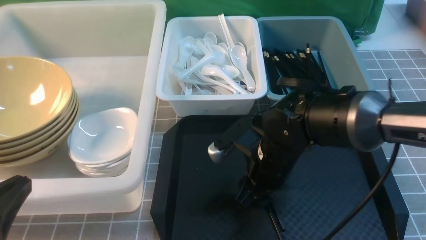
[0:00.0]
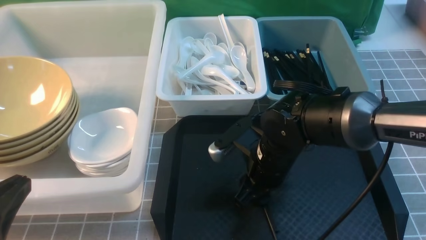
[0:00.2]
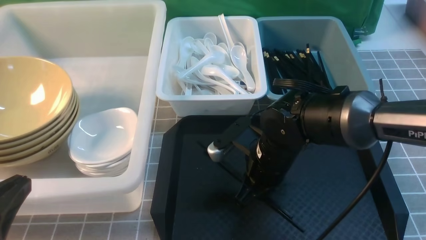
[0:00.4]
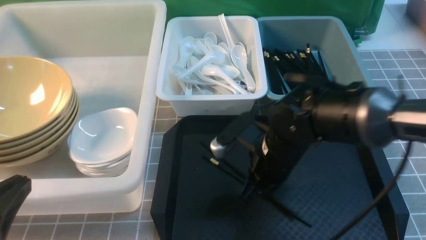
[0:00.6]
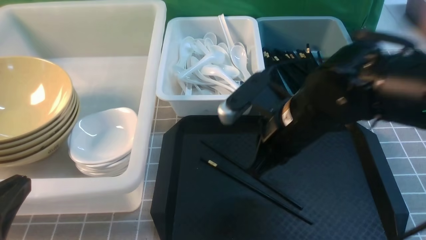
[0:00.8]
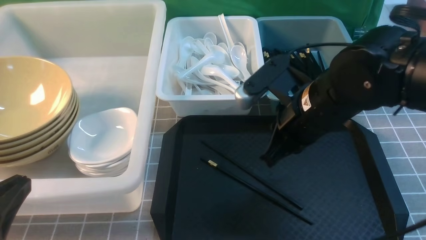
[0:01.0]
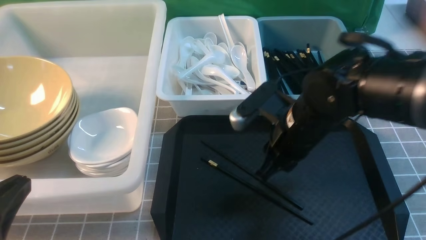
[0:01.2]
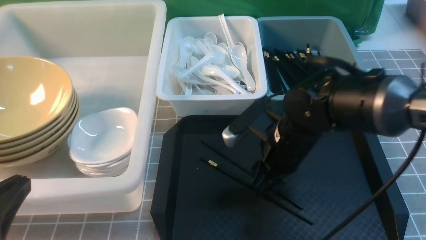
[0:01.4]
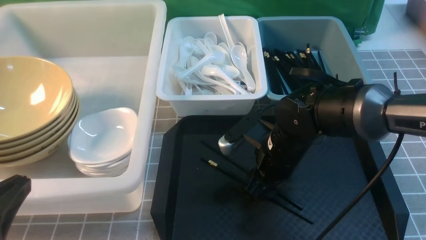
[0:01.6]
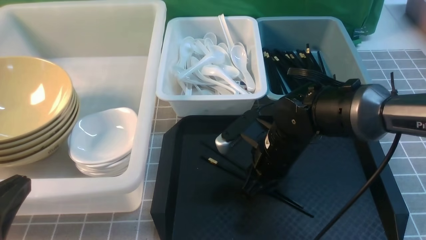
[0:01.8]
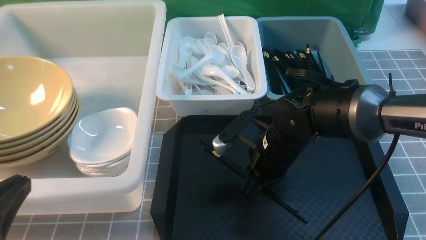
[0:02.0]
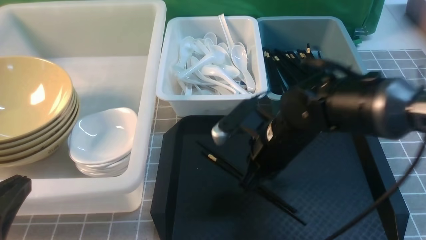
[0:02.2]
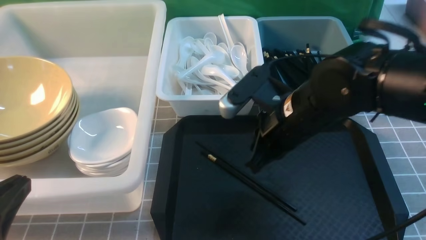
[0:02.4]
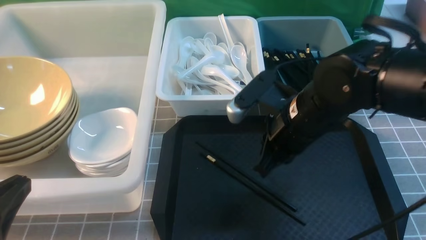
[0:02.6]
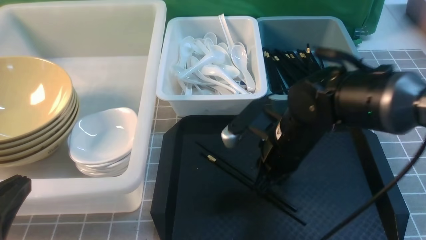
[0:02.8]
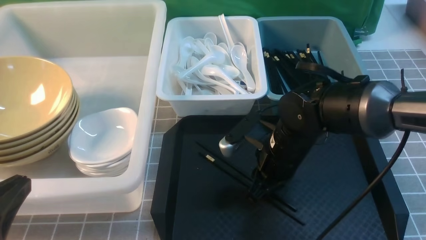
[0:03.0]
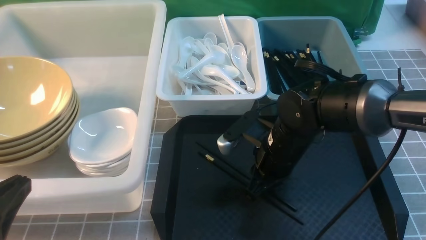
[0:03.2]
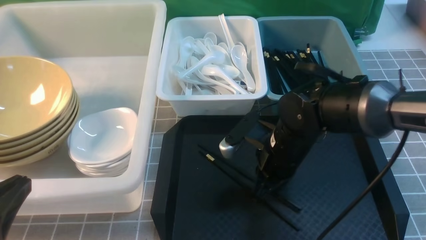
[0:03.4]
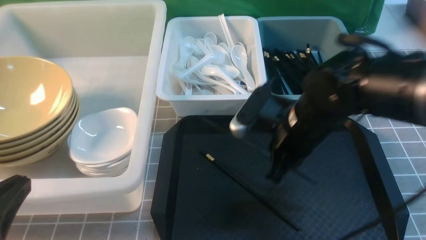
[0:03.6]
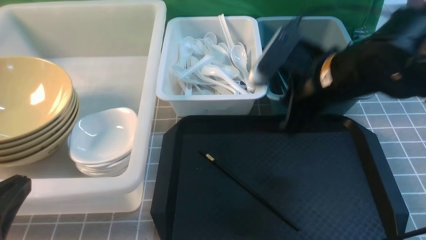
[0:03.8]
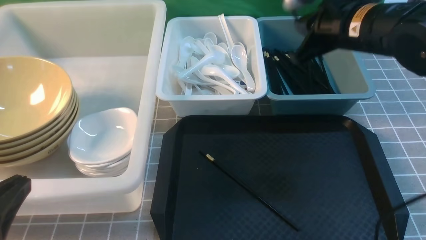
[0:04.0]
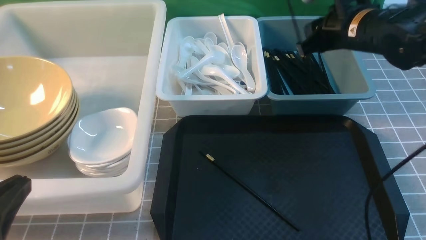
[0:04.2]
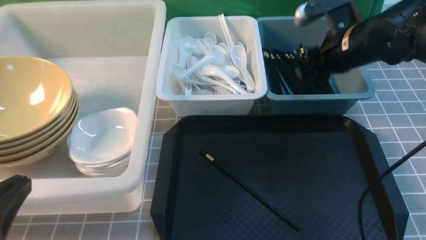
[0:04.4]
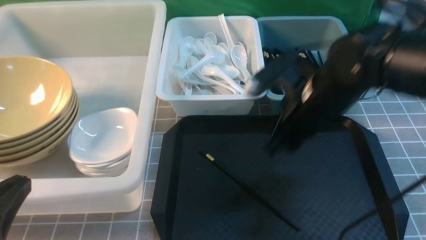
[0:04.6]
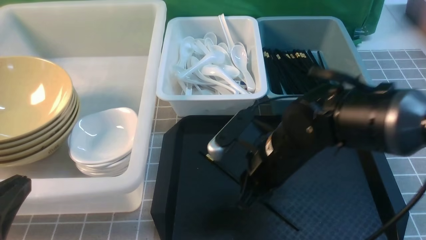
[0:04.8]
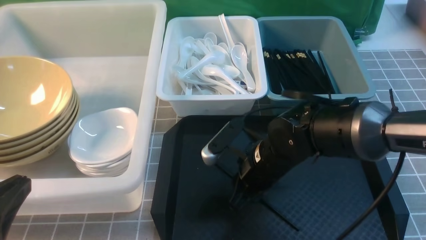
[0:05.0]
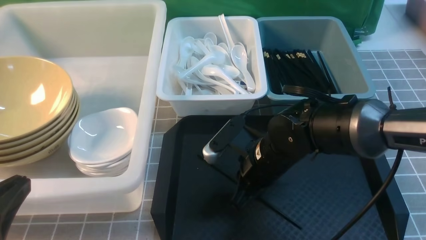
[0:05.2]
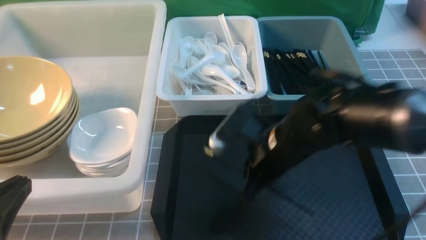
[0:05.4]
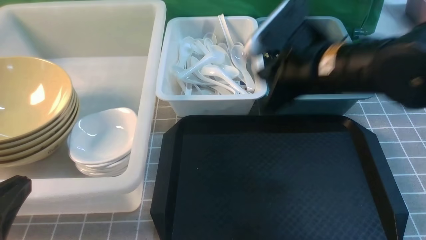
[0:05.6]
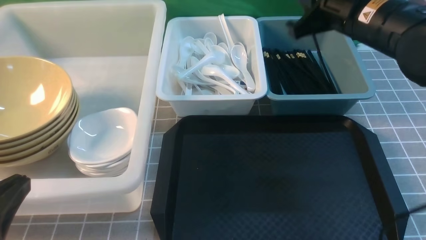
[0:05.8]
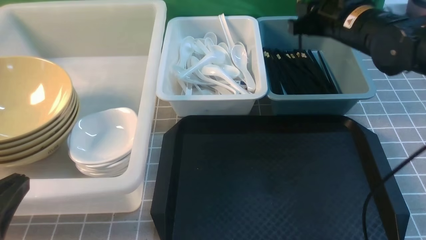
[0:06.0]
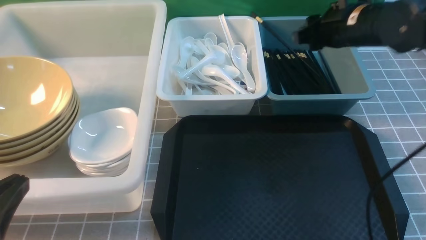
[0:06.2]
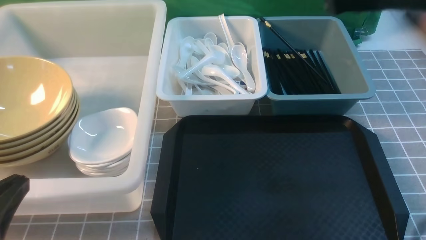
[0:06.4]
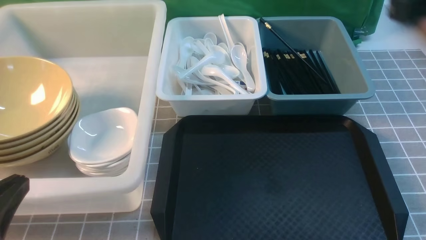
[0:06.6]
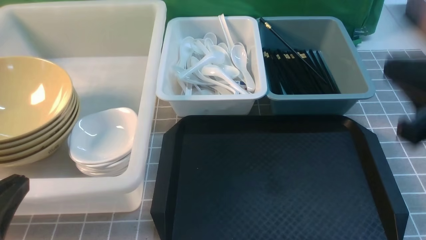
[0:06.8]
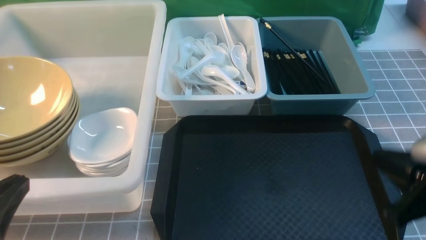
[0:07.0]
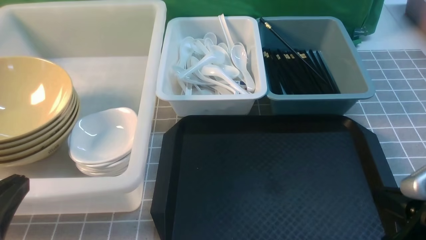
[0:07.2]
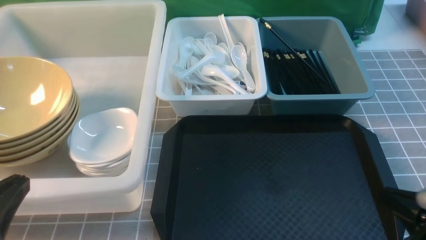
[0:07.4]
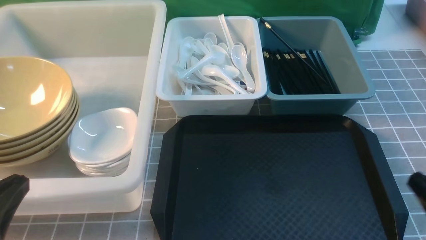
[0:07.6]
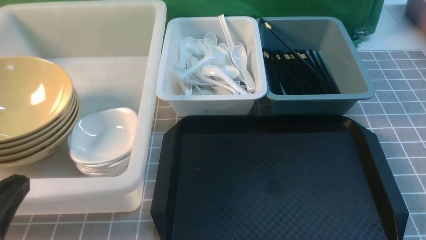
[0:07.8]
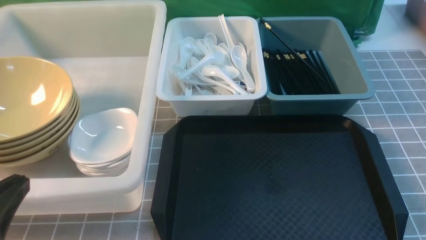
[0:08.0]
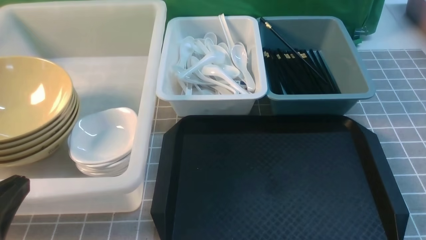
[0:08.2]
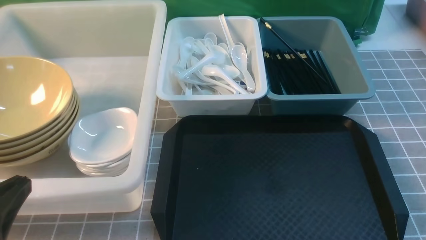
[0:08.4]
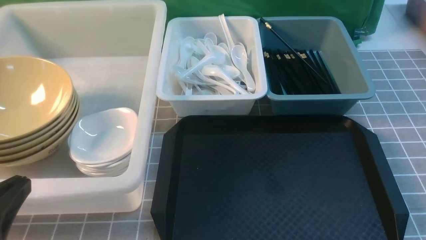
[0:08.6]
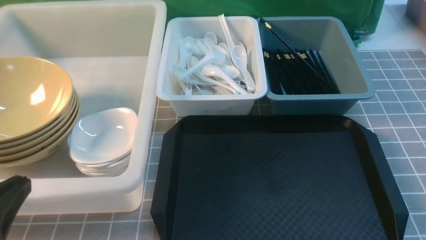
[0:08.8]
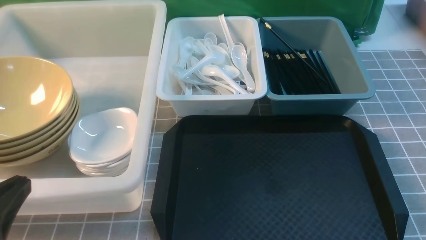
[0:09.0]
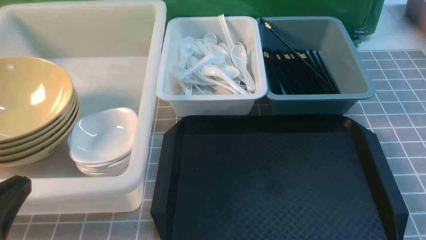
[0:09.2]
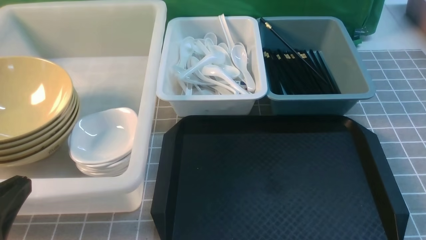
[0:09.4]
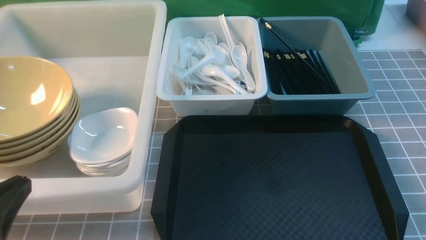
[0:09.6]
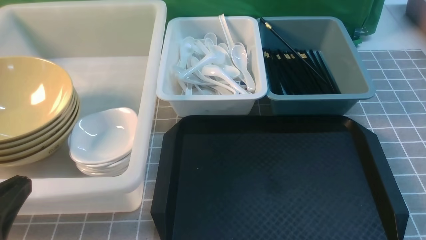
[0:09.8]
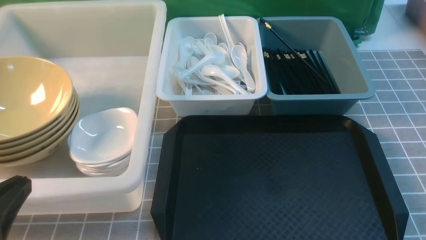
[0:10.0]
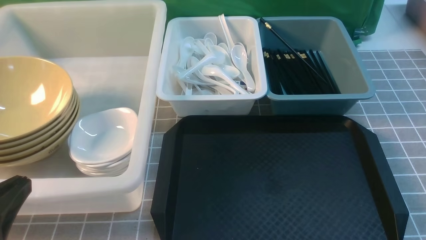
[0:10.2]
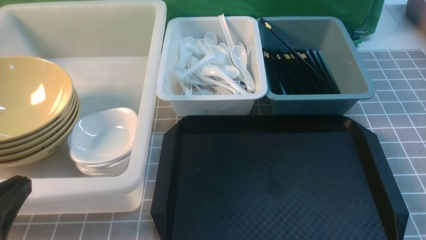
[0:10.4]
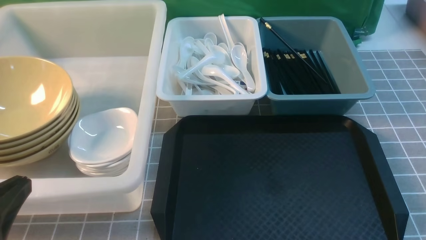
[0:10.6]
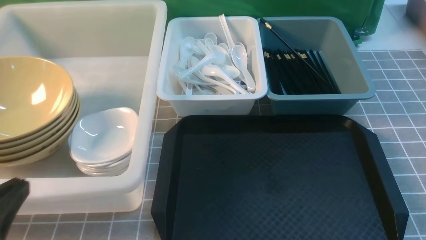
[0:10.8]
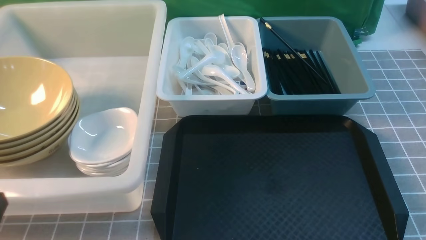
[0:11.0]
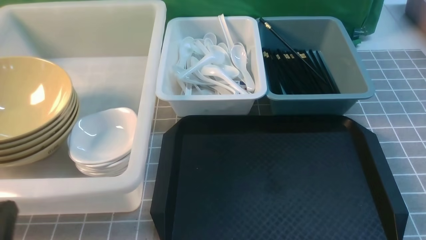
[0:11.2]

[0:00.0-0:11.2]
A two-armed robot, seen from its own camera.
Task of the whole recording: on grey table put chopsticks spoon bowls plates into blue grey white boxes.
Step, 0:00.0 to 0:03.6: use the right arm to grab a chopstick.
Step, 0:03.8 to 0:04.2: use the right arm to put a chopstick into the small storage box on the right.
Step, 0:04.4 to 0:05.4: use the right arm to grab a chopstick.
Step, 0:05.6 to 0:06.2: use the right arm to put a chopstick into the small storage box on the right.
0:00.0 to 0:01.6: The right gripper moves about 10 cm upward and comes back, and closes, then reopens.
0:01.6 to 0:03.2: The right gripper closes its fingers.
0:03.2 to 0:04.8: The right gripper moves approximately 15 cm upward and comes back, and opens.
0:04.8 to 0:06.4: The right gripper is displaced upward and to the right by roughly 25 cm, and closes its fingers.
0:06.4 to 0:08.0: The right gripper is displaced backward, downward and to the right by about 35 cm.
0:09.6 to 0:11.2: The left gripper heads downward, covering approximately 5 cm.

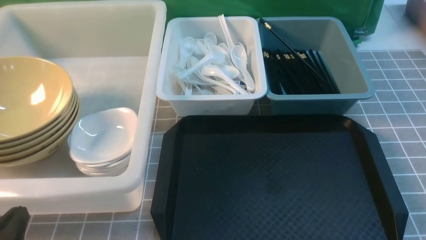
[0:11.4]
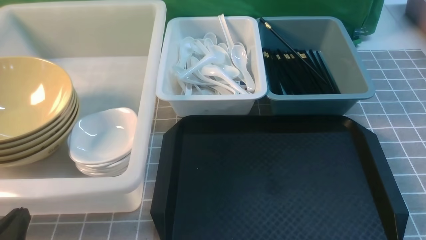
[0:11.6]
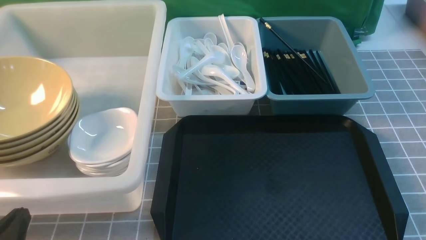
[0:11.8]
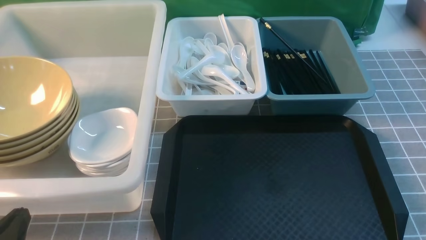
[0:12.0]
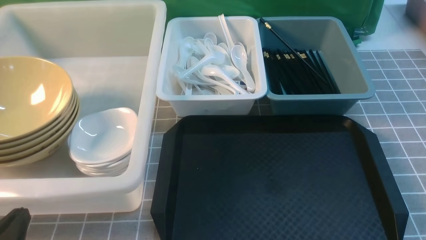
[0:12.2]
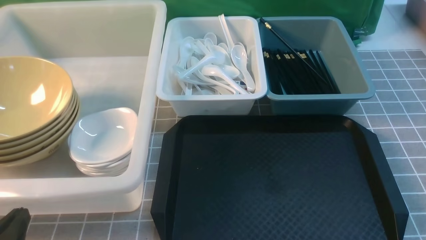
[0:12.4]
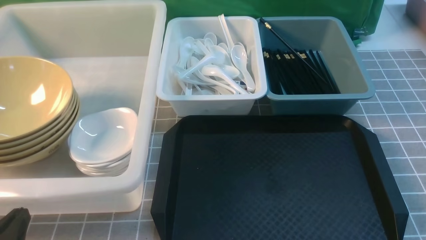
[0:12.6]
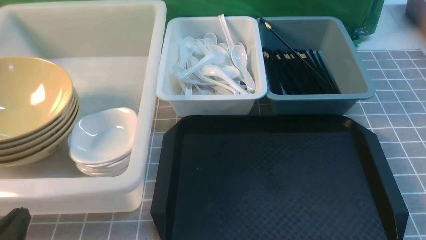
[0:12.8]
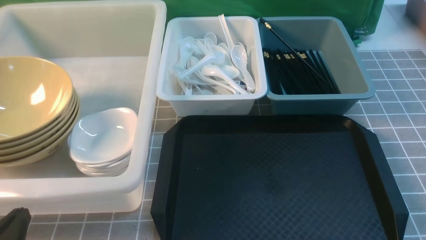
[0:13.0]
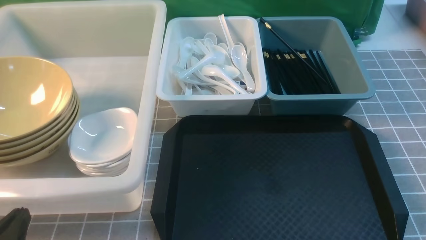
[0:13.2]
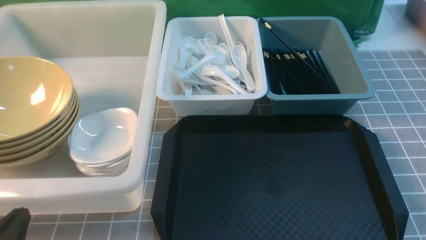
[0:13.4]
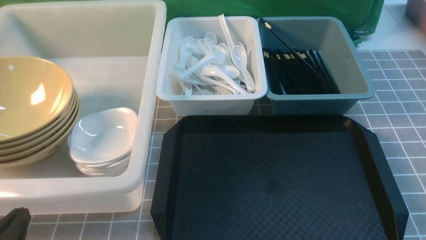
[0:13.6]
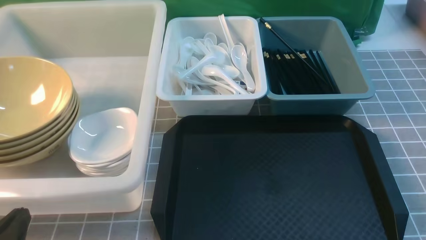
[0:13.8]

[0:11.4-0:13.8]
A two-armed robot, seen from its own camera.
Task of the whole recording: on grey table put chopsticks spoon bowls plates into blue grey white boxes.
0:11.4 to 0:13.8: Both grippers stay about where they are.

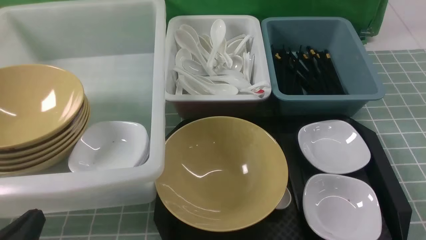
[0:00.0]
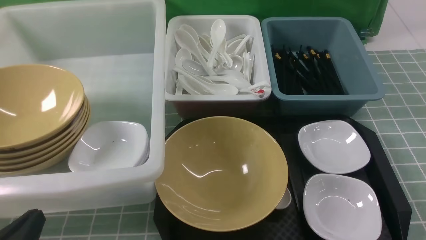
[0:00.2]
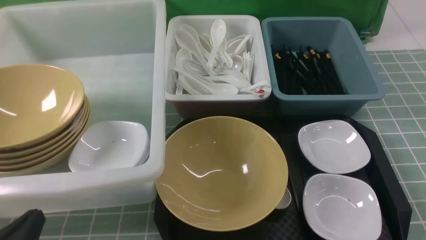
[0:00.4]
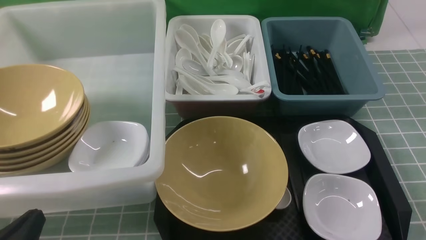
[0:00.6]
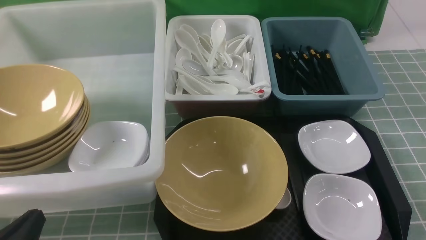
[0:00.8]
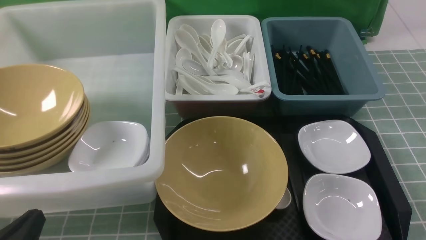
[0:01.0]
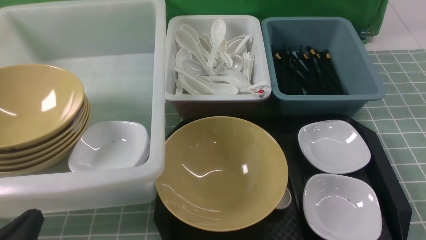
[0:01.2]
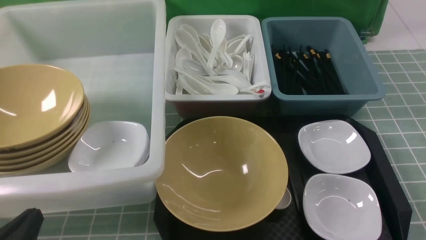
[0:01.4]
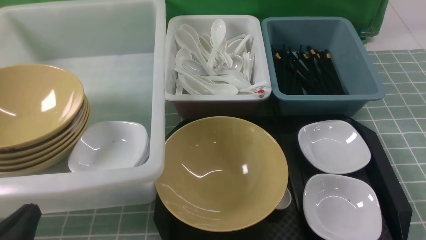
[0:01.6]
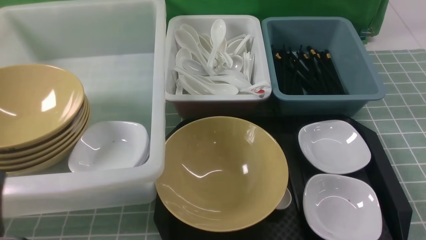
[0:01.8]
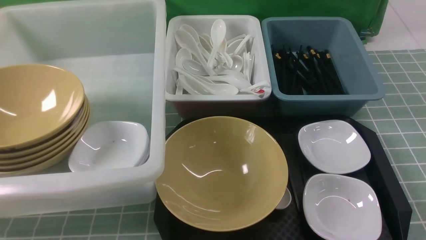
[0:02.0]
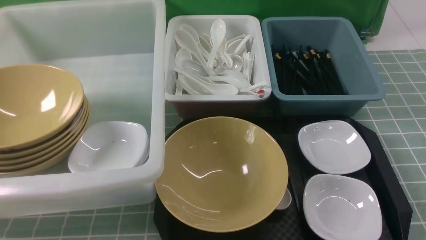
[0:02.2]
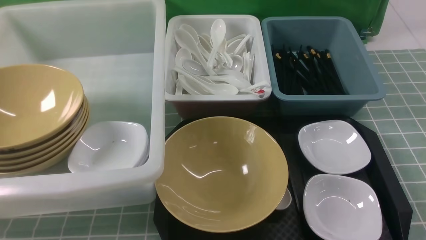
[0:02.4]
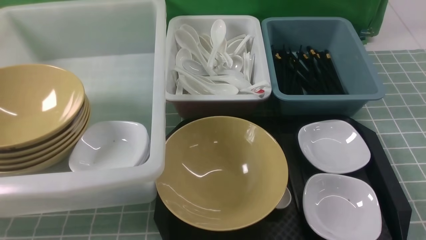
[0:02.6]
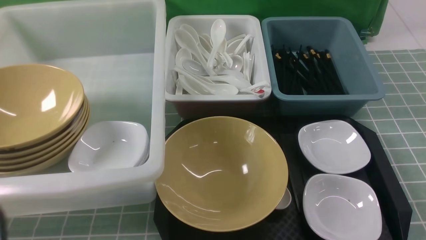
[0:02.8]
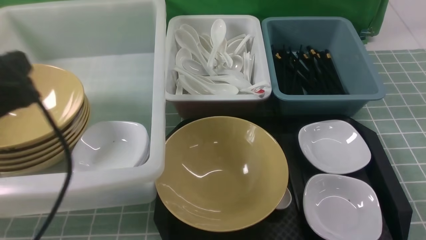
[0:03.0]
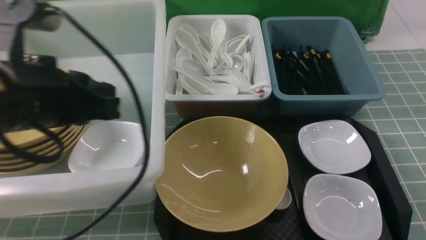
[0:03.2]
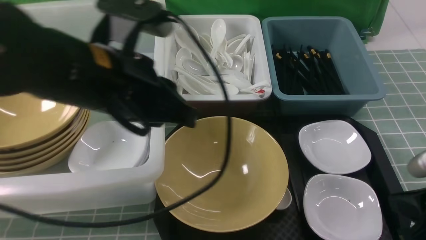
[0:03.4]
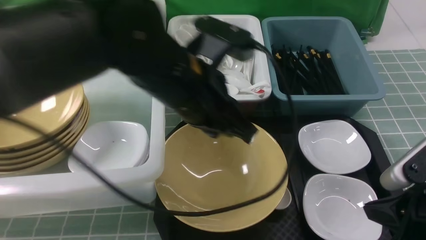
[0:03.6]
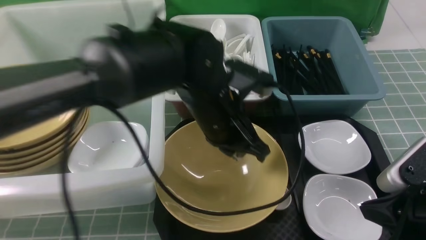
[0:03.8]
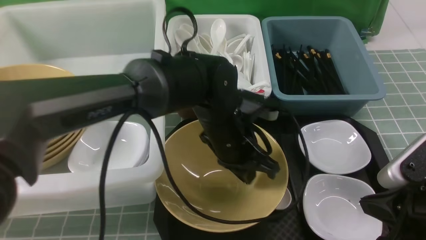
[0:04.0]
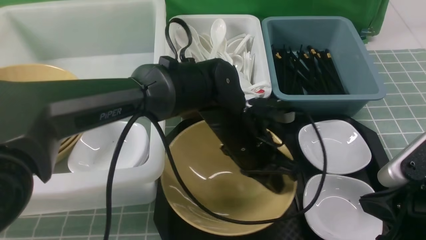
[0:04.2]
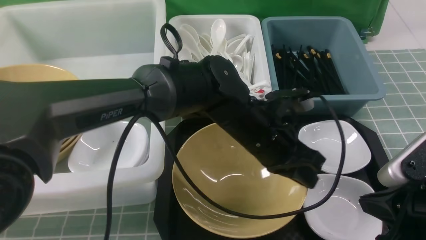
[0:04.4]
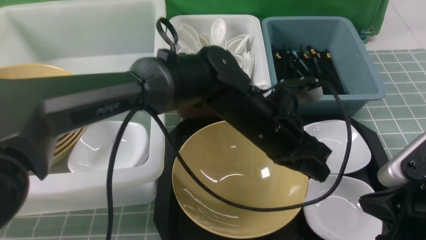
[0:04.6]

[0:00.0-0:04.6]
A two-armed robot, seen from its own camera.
Task of the whole recording: on blue table put chopsticks spoon bowls plates into blue grey white boxes.
0:01.6 to 0:03.0: The left gripper goes roughly 20 cm upward and forward.
0:03.0 to 0:04.6: The left gripper is displaced to the right, forward and downward by some 30 cm. Meanwhile the right gripper heads downward and to the left, covering about 10 cm.
